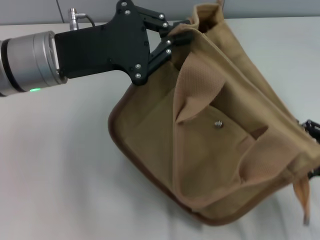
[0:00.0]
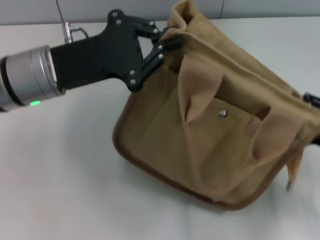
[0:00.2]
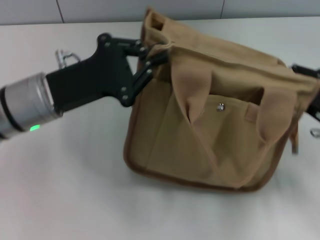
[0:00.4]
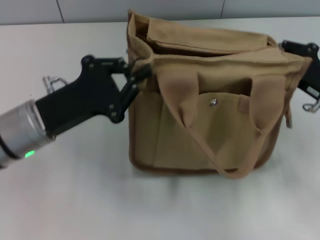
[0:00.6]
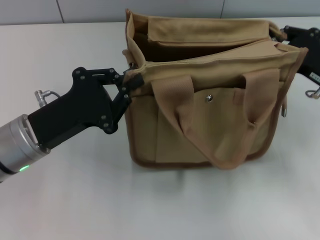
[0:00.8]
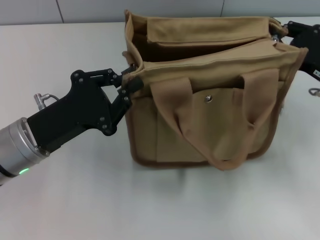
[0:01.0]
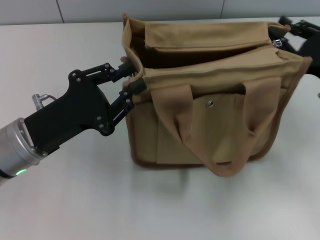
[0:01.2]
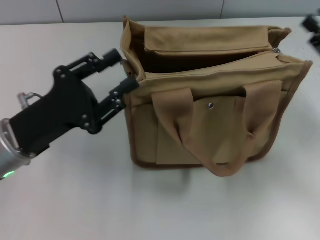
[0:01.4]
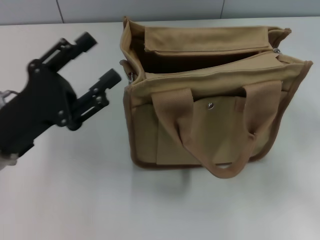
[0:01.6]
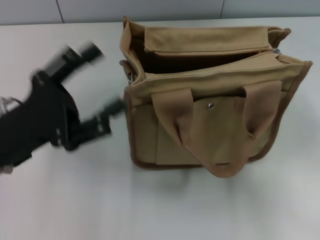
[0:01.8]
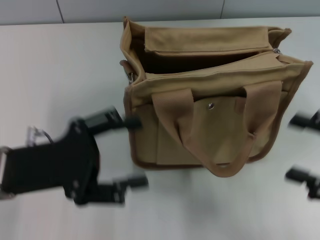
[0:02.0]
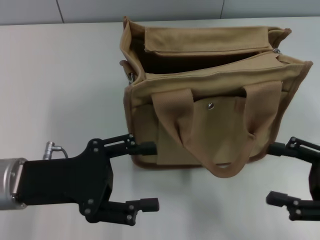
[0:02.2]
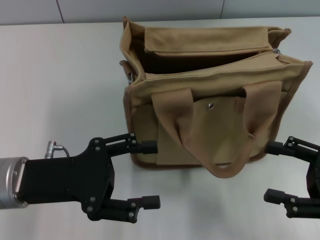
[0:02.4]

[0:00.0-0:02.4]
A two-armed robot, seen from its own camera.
Step, 0:00.0 to 0:01.2: Grab the bag with your left hand.
0:00.0 to 0:01.2: The left gripper heads downward and backward, covering roughly 10 cm, while the right gripper is displaced forward and upward by about 15 cm, and closes its fingers.
0:01.2 to 0:02.4: The left gripper opens its fingers; the right gripper is displaced backward by approximately 10 cm, and opens.
